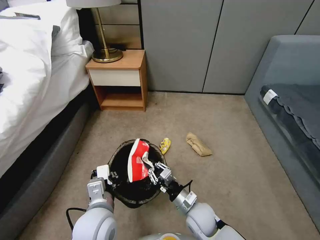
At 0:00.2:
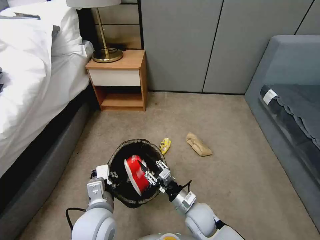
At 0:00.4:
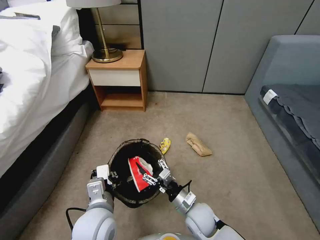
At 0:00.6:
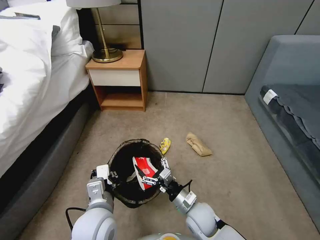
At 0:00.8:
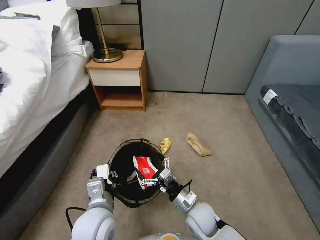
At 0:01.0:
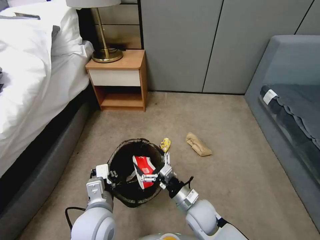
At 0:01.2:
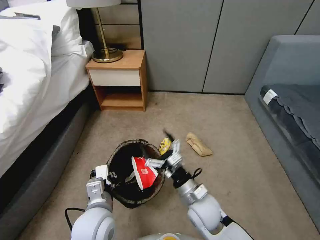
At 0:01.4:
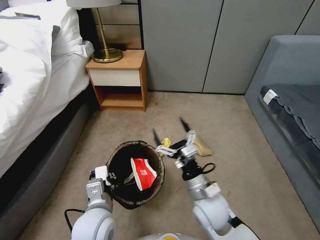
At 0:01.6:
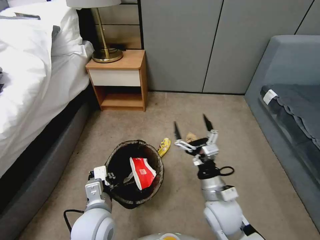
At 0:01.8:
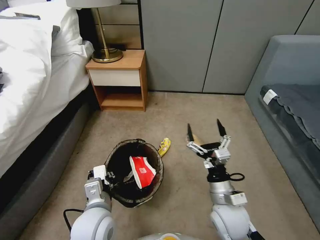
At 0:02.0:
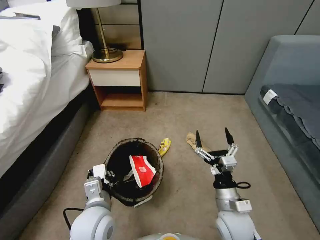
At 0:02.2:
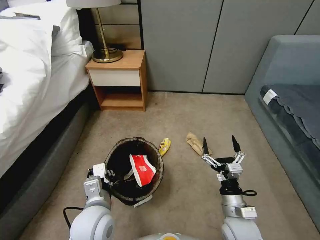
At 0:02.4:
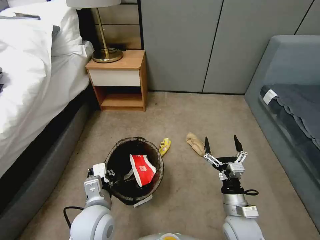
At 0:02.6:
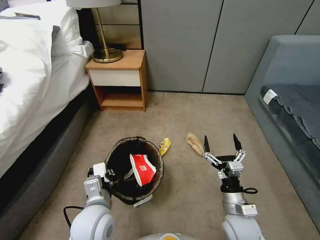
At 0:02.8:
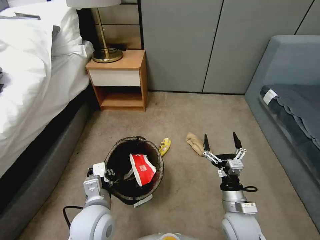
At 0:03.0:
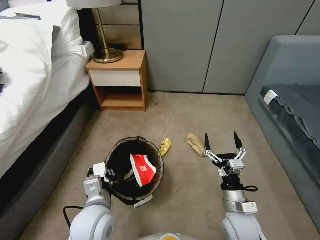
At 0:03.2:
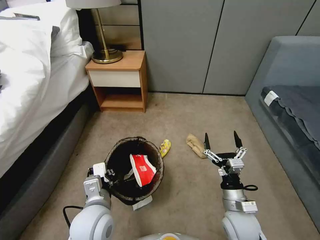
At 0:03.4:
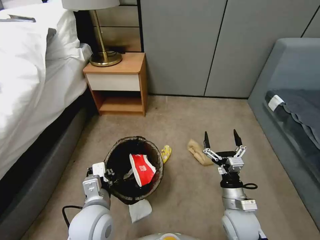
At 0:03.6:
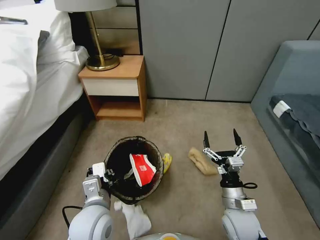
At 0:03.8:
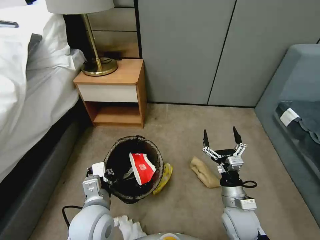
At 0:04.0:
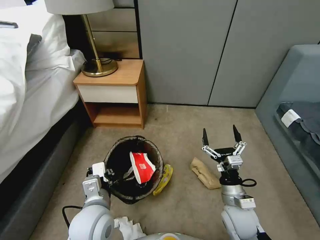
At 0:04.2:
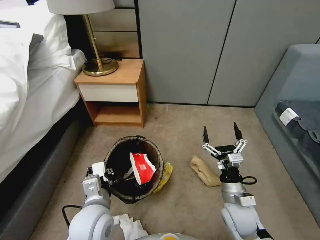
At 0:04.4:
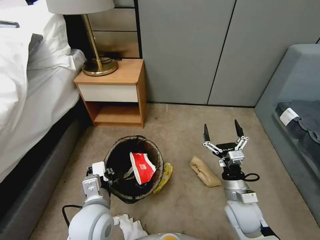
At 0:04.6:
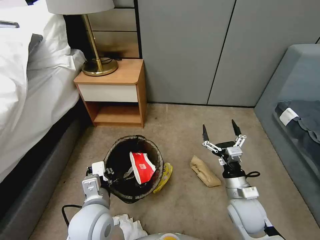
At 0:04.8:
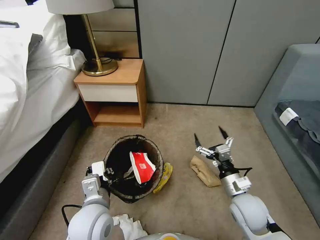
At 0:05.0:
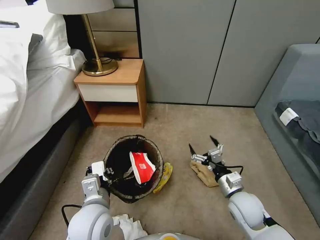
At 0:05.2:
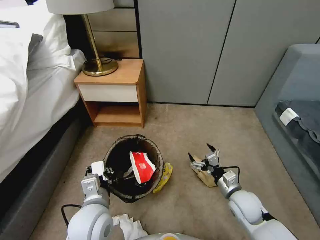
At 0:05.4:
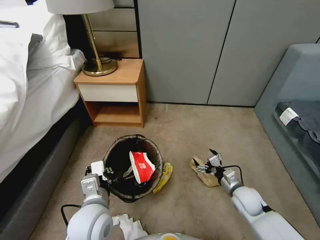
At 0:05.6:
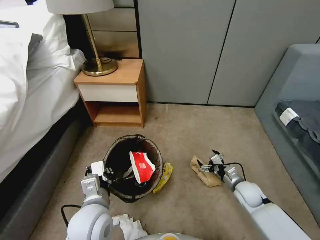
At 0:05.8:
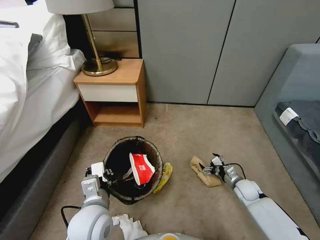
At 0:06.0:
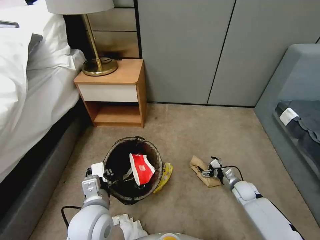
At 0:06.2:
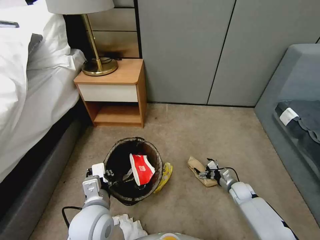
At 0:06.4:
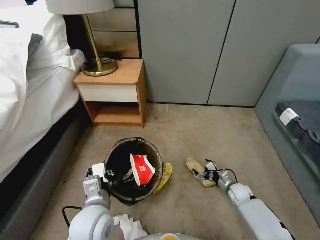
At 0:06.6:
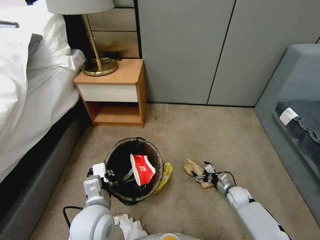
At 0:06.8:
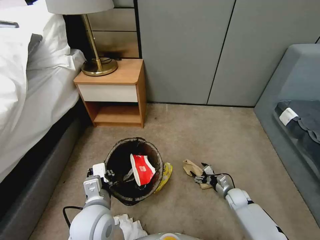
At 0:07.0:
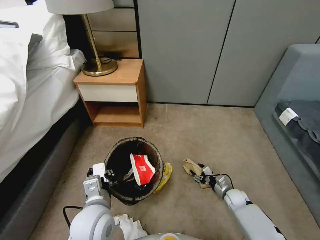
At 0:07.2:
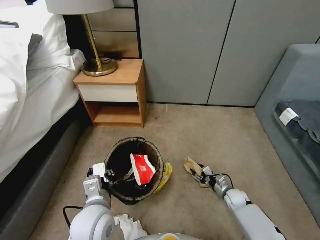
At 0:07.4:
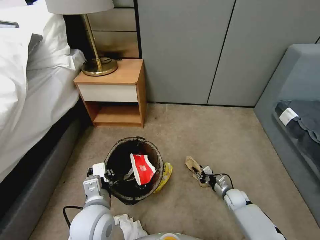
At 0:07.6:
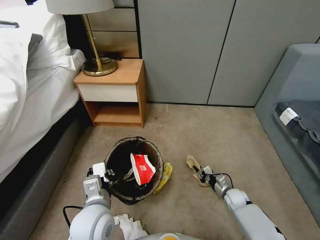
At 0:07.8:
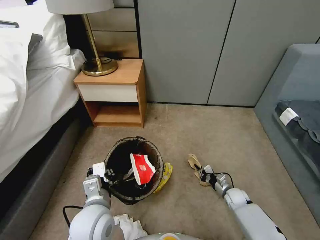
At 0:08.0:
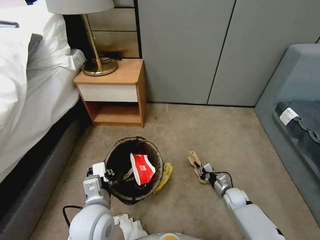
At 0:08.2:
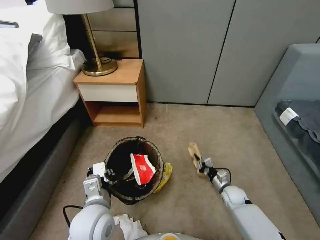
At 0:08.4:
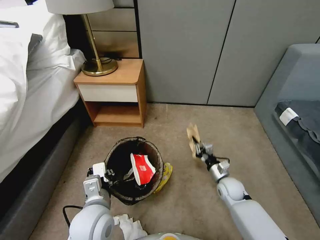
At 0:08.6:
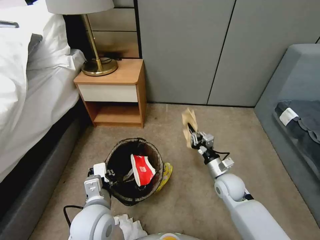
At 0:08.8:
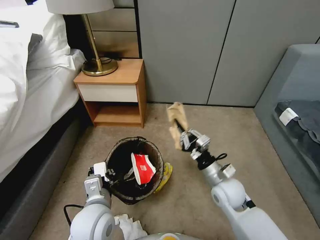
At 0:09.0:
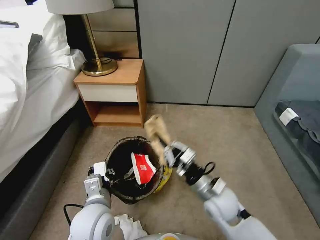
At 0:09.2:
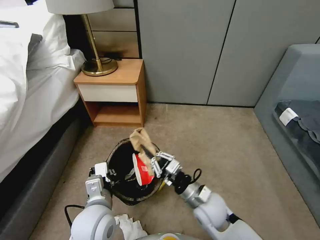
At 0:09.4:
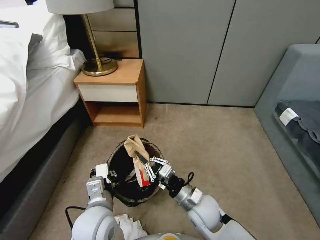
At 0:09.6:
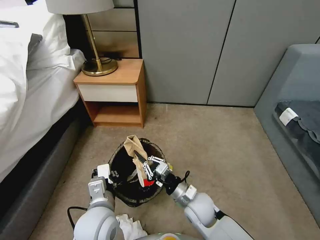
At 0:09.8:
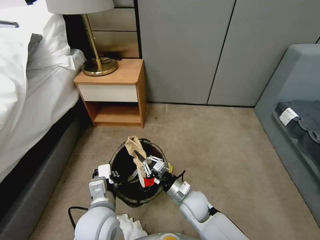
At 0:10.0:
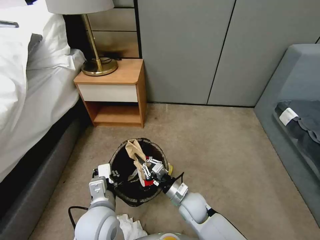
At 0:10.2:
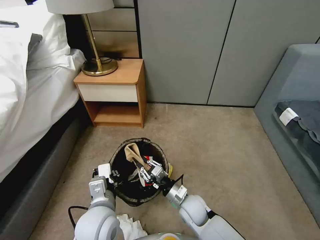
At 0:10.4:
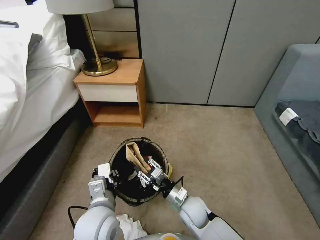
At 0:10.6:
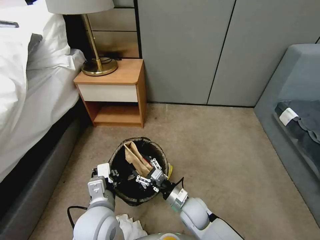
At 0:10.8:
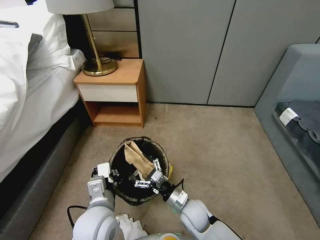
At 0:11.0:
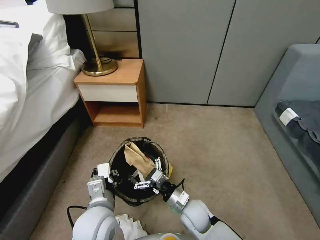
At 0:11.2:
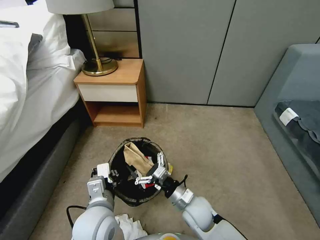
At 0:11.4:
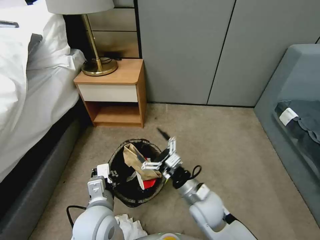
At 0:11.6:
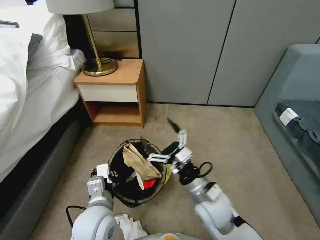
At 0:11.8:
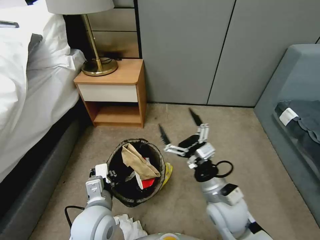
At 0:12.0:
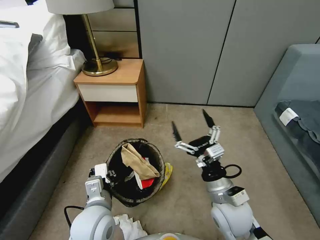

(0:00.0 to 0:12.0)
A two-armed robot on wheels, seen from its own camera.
Task of the whole recording: Pick up the trash bin, then pick up the garbage from the floor and place it into the trash bin.
0:00.0 - 0:01.6: The right gripper heads upward, covering some 10 cm, and opens its fingers.
0:01.6 - 0:03.0: The right gripper travels to the right and downward by about 10 cm.
0:04.4 - 0:06.0: The right gripper goes some 25 cm downward, to the right and forward.
0:06.0 - 0:07.6: The right gripper shifts by about 5 cm, and closes.
0:07.6 - 0:09.0: The right gripper travels upward and to the left by roughly 30 cm.
0:09.0 - 0:10.4: The right gripper heads downward and to the left, covering about 10 cm, and opens its fingers.
0:10.4 - 0:12.0: The right gripper goes roughly 15 cm upward and to the right, and opens its fingers.

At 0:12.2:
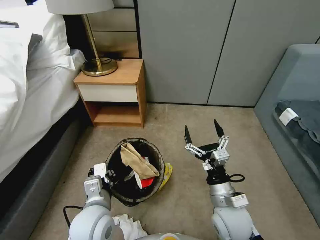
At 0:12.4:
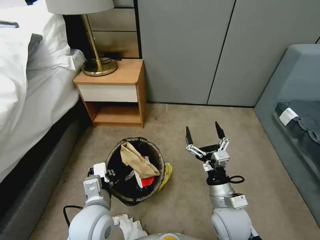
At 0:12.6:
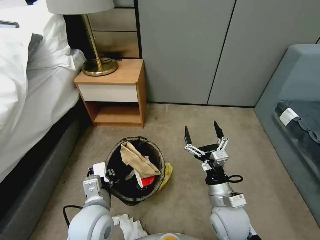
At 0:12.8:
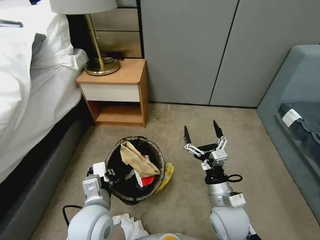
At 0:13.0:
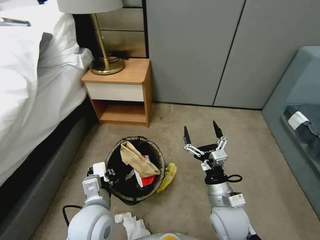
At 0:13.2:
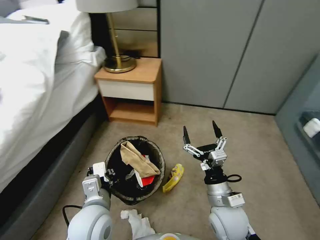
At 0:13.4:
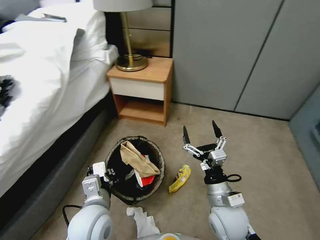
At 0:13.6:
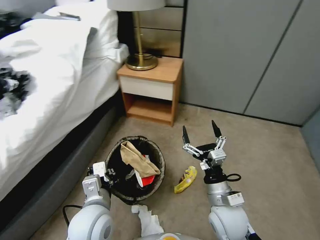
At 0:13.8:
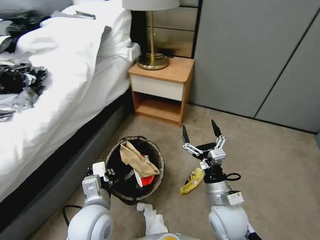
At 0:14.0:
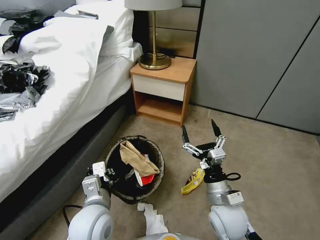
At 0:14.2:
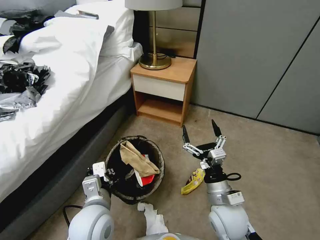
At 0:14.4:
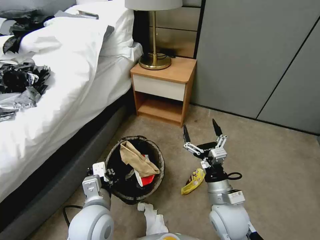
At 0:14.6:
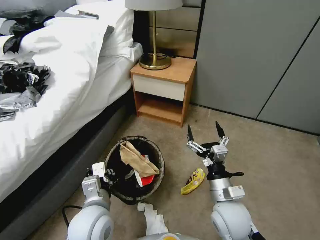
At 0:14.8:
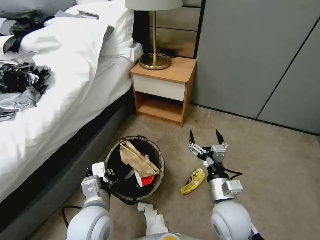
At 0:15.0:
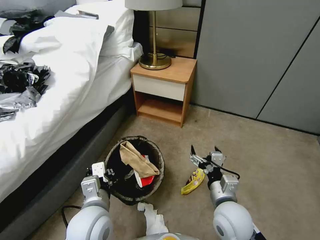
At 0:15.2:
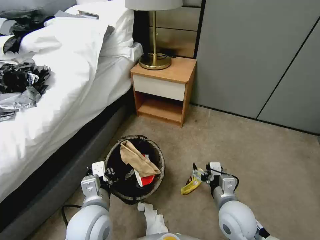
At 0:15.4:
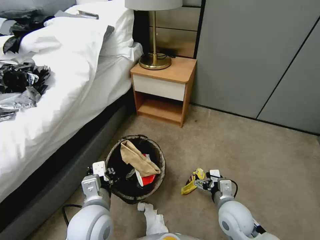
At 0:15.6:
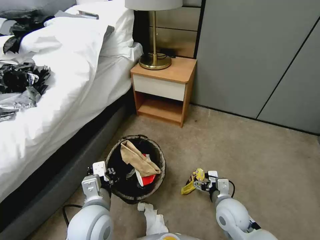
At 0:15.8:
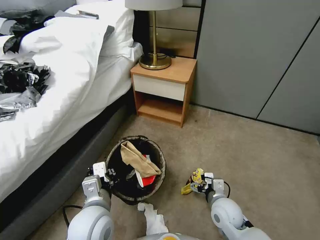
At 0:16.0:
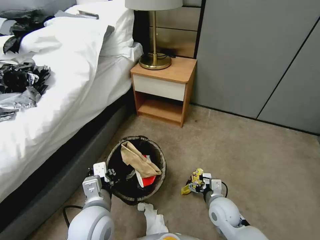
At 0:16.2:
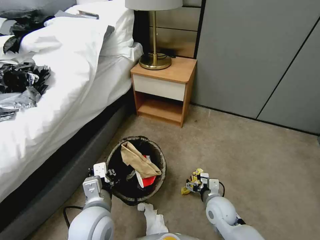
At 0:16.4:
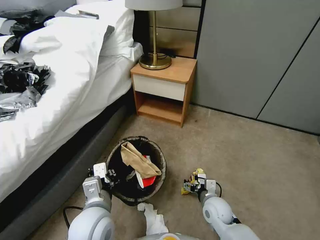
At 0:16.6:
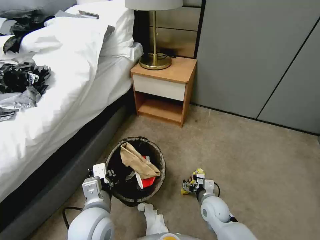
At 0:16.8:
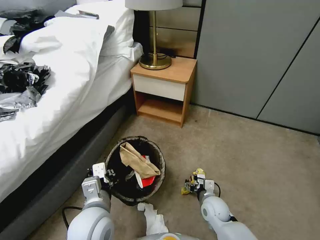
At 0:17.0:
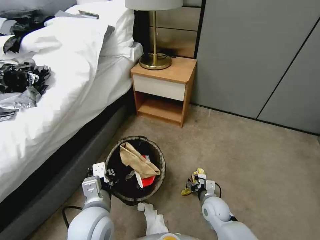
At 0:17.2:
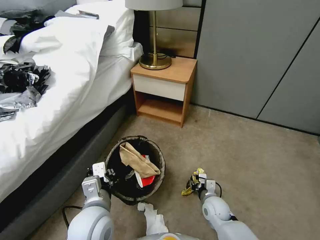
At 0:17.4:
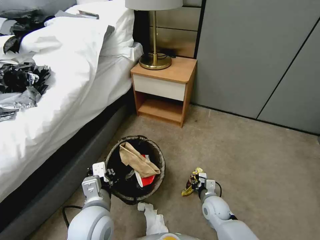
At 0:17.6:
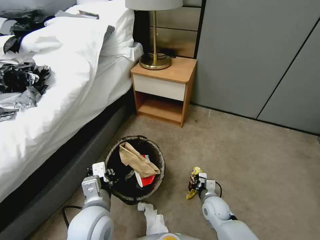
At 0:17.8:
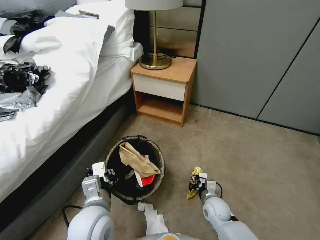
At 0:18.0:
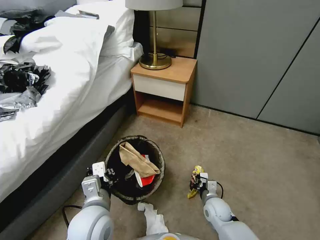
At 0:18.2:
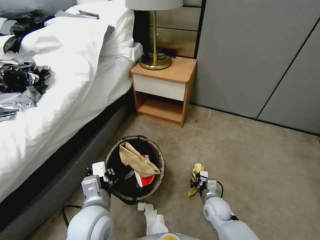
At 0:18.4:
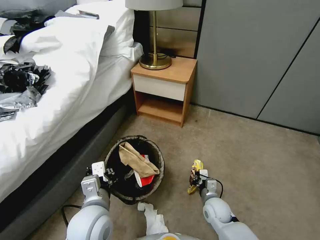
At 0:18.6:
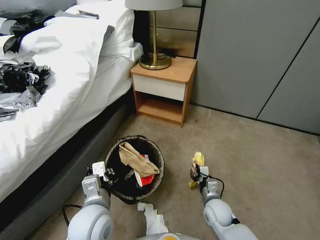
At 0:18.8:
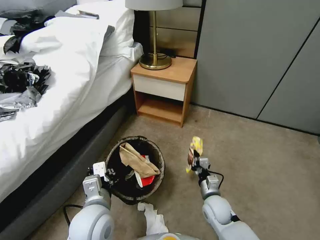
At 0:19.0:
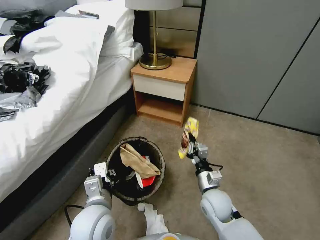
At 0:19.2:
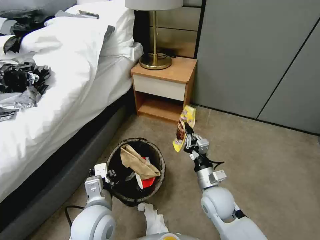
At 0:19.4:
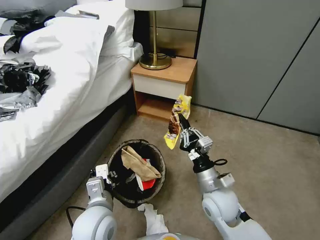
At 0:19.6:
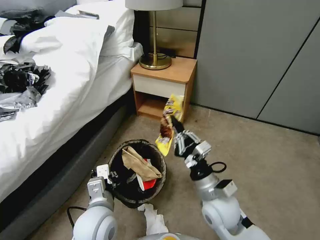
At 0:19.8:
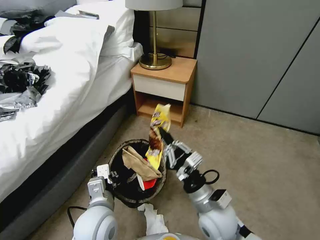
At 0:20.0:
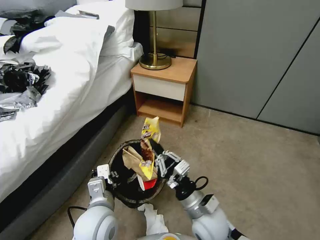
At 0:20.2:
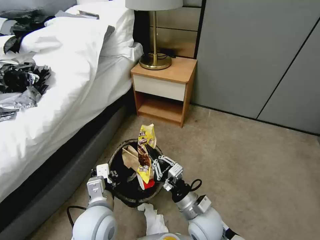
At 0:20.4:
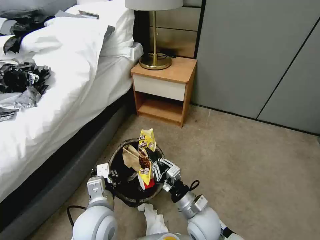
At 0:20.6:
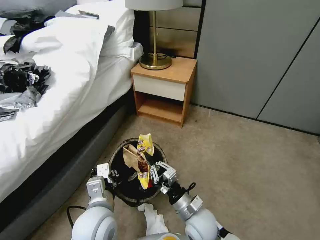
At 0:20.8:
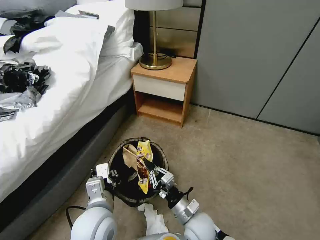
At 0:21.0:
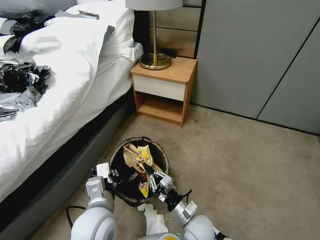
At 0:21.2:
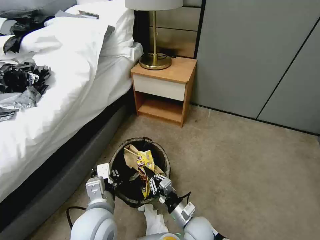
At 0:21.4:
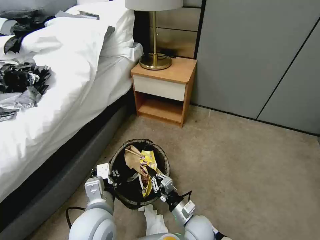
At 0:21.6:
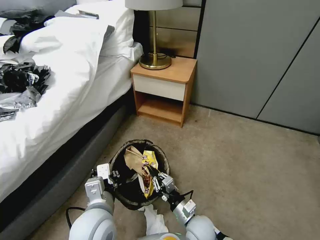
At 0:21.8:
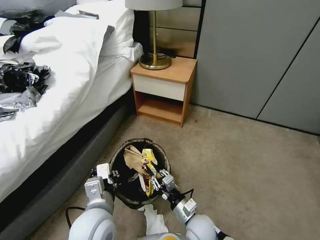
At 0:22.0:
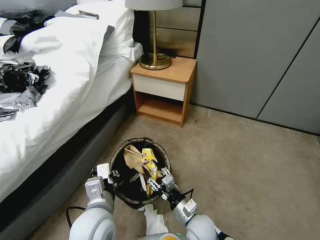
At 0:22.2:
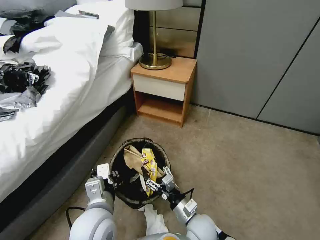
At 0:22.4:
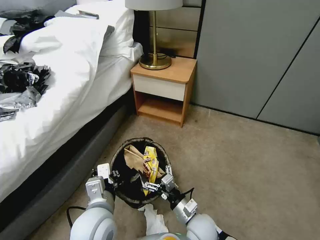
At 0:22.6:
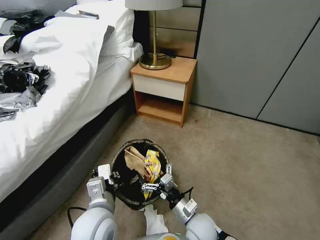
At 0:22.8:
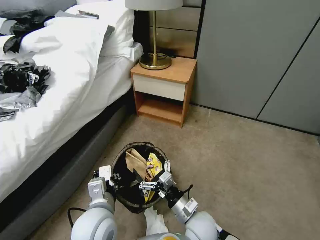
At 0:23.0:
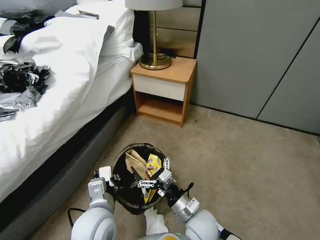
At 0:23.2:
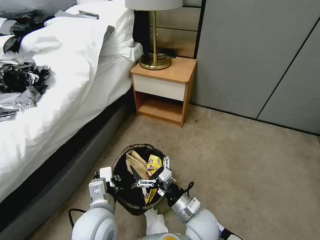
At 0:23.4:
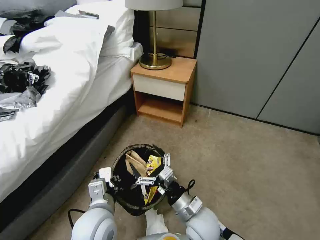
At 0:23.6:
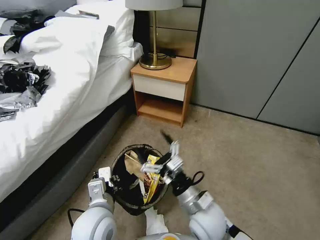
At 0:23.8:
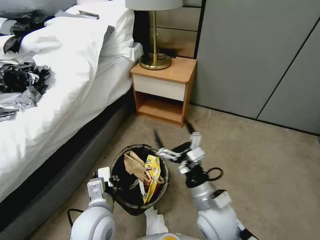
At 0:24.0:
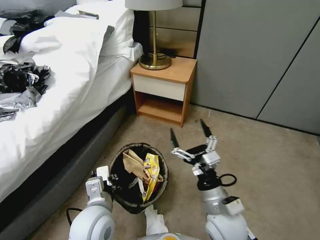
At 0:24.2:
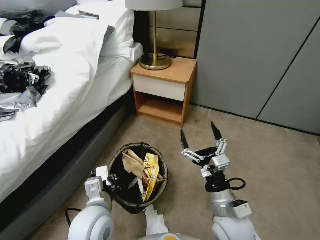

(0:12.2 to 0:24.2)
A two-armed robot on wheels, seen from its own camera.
Task of the whole recording: Pick up the trash bin, then pick up the garbage from the floor and place it into the trash bin.
0:15.2 - 0:16.6: The right gripper heads downward, covering some 15 cm.
0:16.6 - 0:18.2: The right gripper closes.
0:18.2 - 0:19.8: The right gripper moves upward, approximately 20 cm.
0:19.8 - 0:21.2: The right gripper heads downward, covering some 15 cm.
0:21.2 - 0:22.6: The right gripper opens.
0:22.6 - 0:24.2: The right gripper heads upward and to the right, covering roughly 15 cm.
